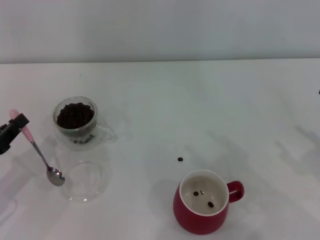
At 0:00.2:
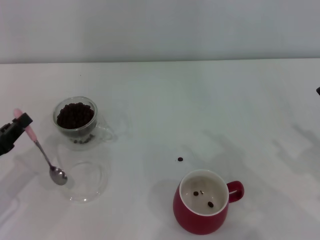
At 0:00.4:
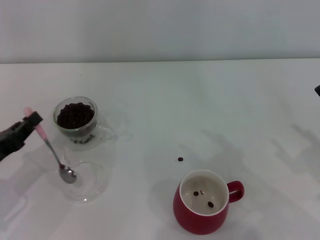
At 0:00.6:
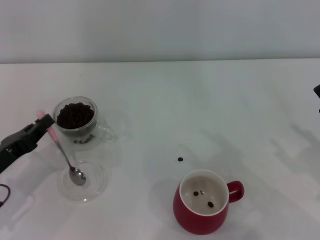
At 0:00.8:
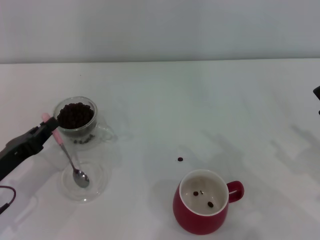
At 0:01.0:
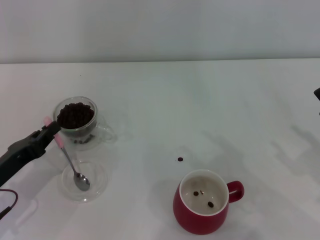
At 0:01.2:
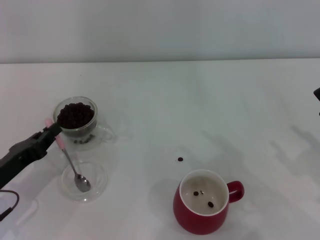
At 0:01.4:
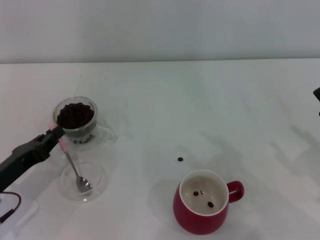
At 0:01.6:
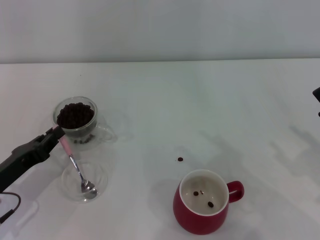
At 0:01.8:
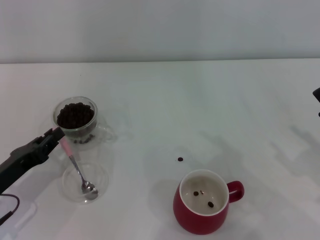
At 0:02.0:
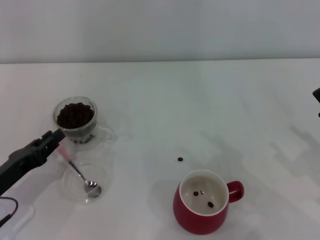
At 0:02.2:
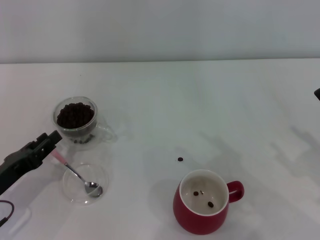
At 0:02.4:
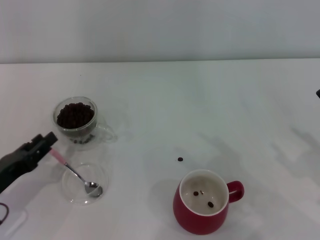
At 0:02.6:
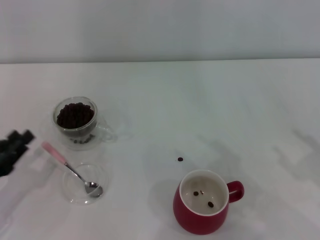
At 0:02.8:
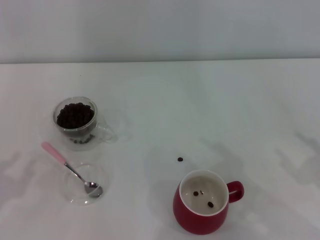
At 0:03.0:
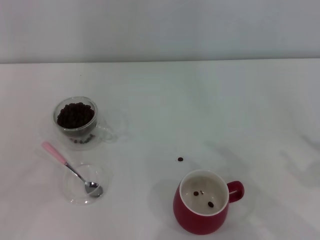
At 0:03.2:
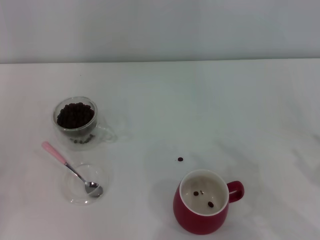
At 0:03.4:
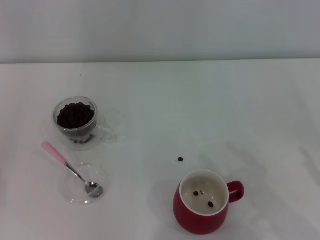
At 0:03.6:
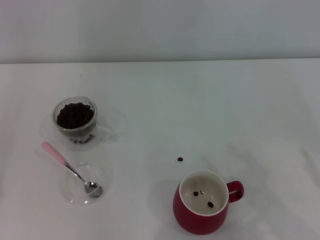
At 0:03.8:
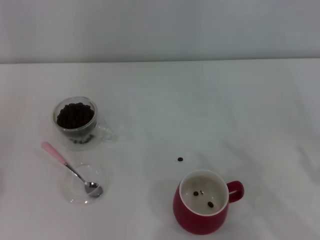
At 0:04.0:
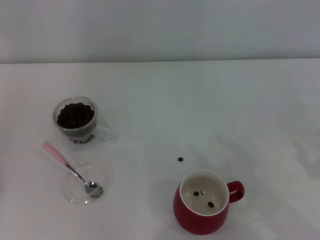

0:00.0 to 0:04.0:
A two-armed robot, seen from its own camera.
Task of the whole recording: Use a pink spoon to take out the coffee beans from the glass and pour them into the red cup.
Step, 0:00.0 to 0:02.4: Place the spoon back in its original place with the right gripper.
0:00.0 to 0:01.4: The left gripper moves approximately 5 cm.
0:01.4 to 0:02.6: The left gripper changes place by roughly 5 cm, and opens up.
0:02.6 to 0:04.0: The left gripper heads to the left and backward, covering some 10 cm.
